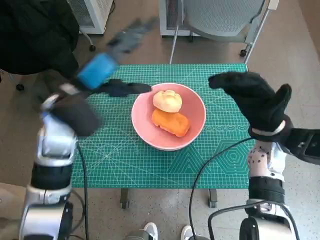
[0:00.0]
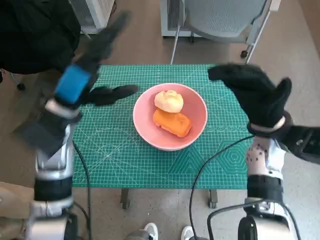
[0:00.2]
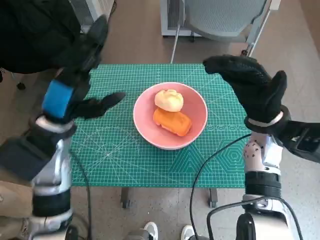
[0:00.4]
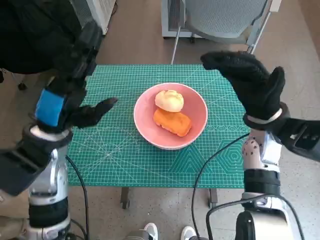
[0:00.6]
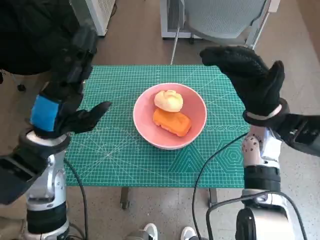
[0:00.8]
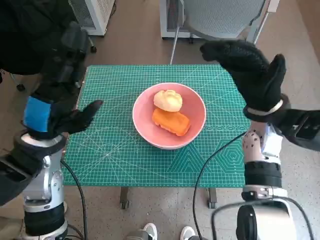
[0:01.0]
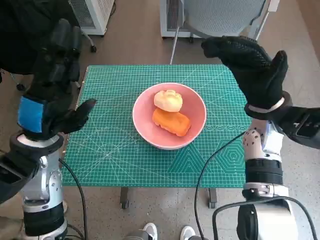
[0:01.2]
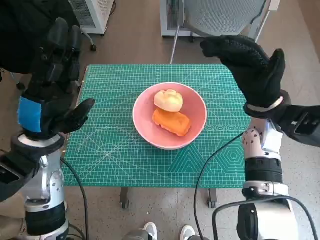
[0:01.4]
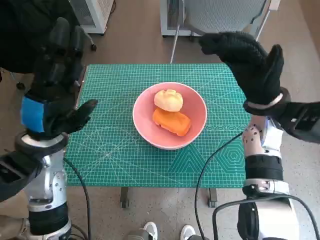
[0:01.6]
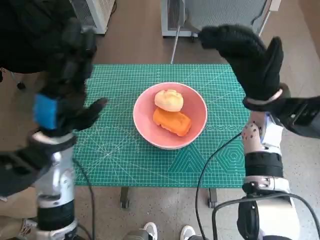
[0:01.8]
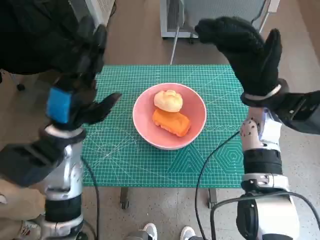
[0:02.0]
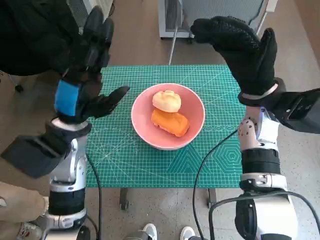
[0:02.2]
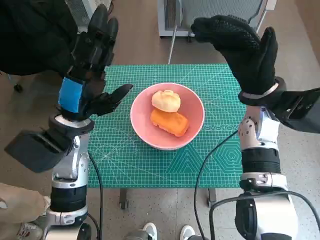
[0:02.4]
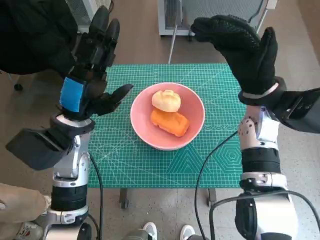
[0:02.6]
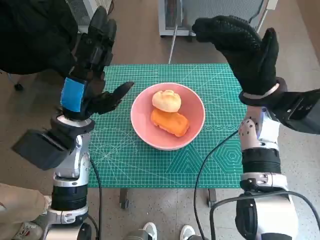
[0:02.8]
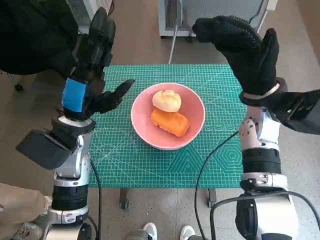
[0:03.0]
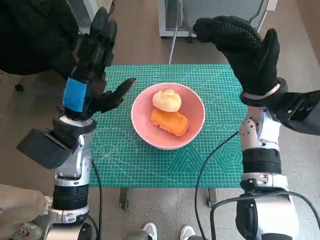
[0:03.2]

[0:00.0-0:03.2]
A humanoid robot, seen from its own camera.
0:00.0 to 0:01.6: The left hand moves backward, some 5 cm. Meanwhile the right hand shifts by about 5 cm.
0:01.6 to 0:03.2: The left hand ends up about 5 cm from where it was.

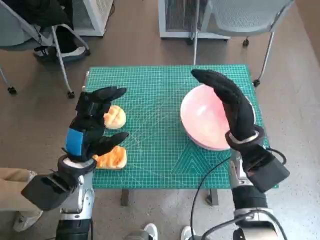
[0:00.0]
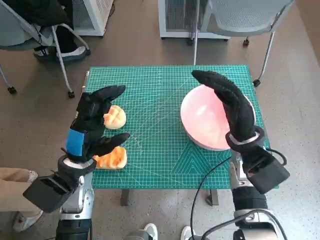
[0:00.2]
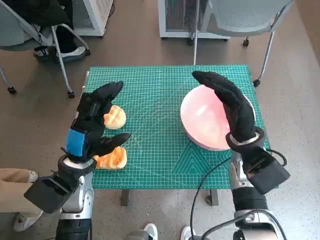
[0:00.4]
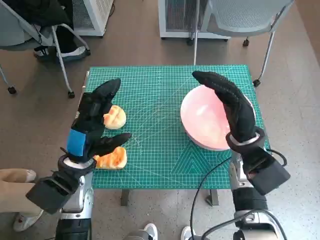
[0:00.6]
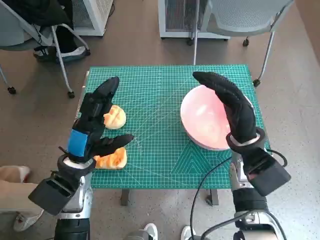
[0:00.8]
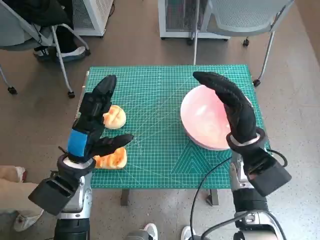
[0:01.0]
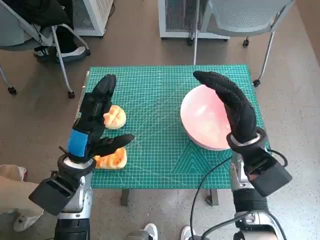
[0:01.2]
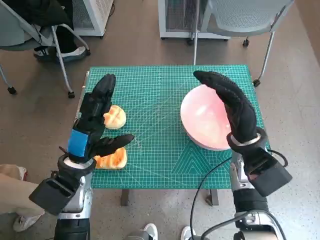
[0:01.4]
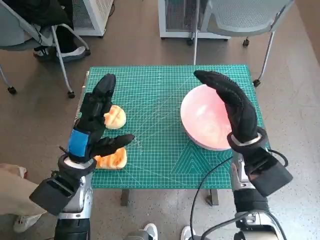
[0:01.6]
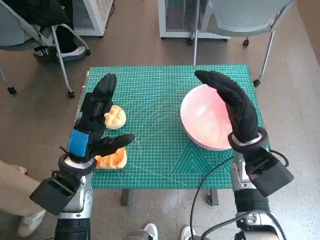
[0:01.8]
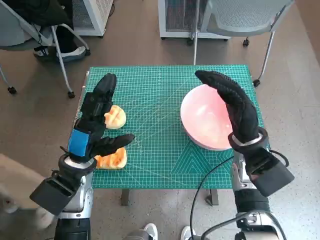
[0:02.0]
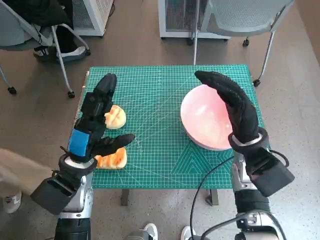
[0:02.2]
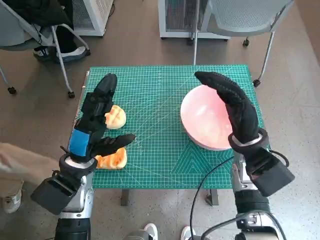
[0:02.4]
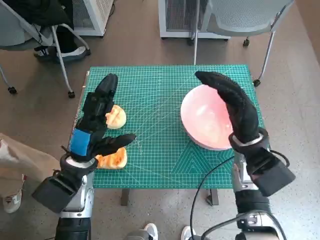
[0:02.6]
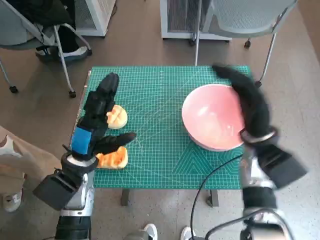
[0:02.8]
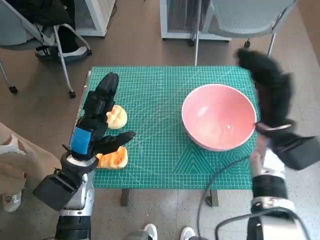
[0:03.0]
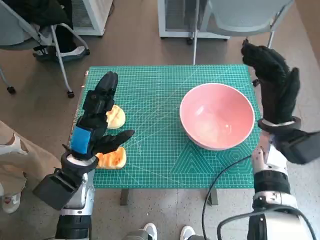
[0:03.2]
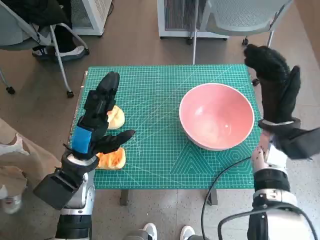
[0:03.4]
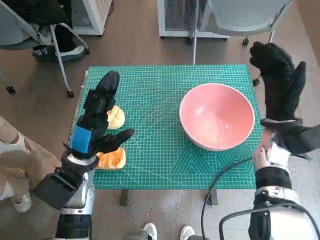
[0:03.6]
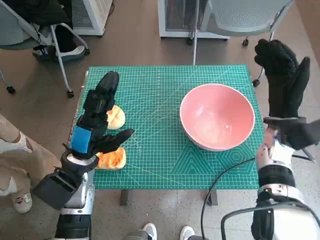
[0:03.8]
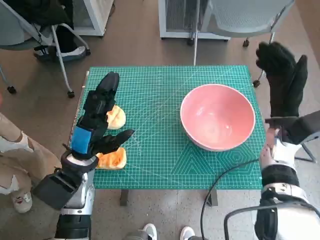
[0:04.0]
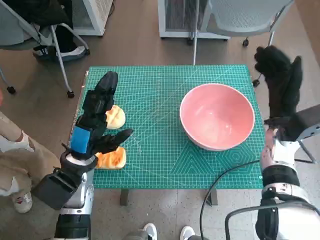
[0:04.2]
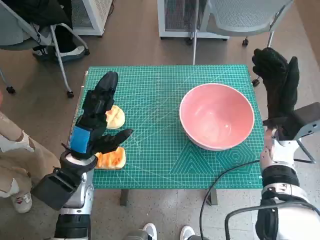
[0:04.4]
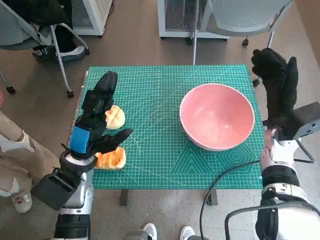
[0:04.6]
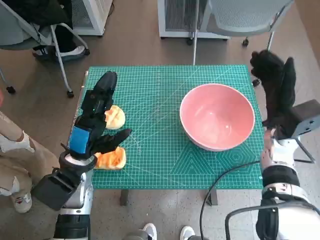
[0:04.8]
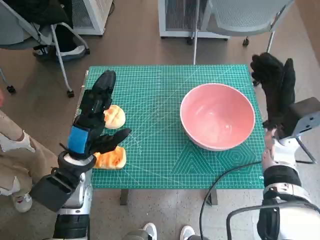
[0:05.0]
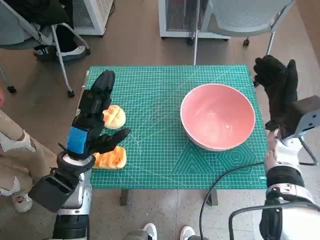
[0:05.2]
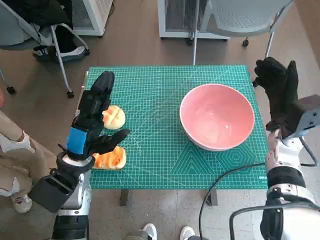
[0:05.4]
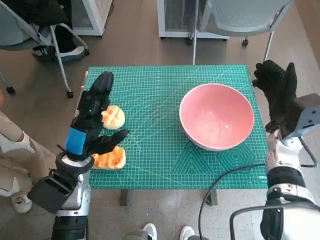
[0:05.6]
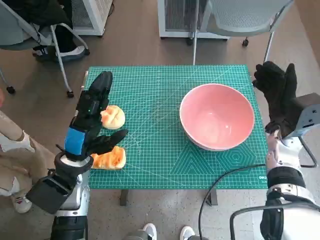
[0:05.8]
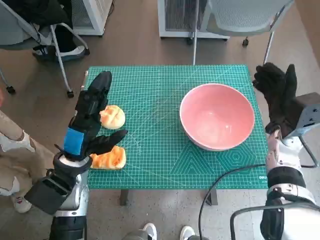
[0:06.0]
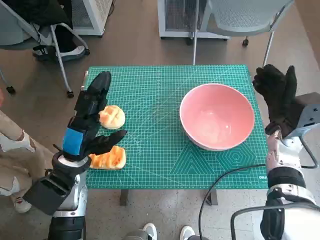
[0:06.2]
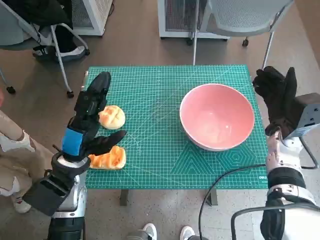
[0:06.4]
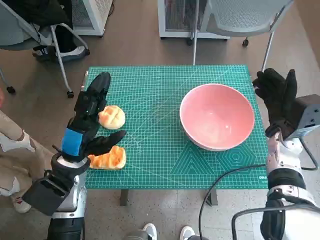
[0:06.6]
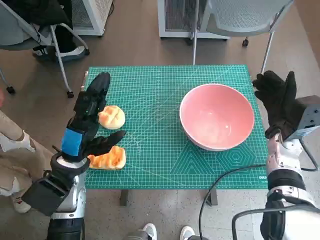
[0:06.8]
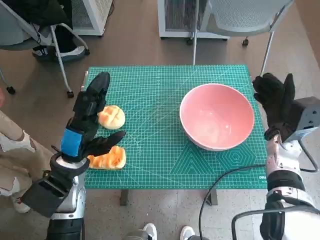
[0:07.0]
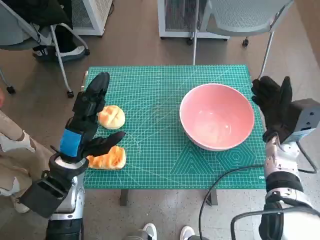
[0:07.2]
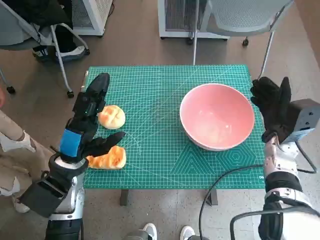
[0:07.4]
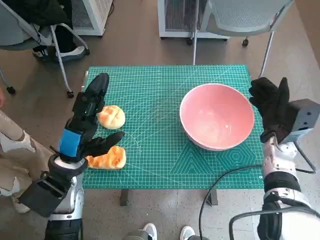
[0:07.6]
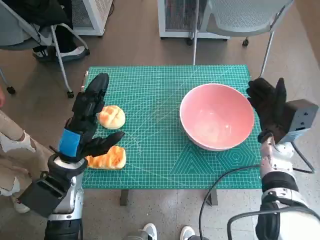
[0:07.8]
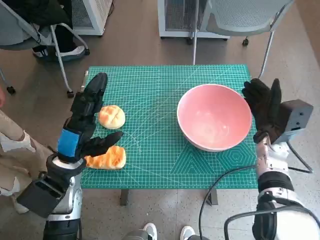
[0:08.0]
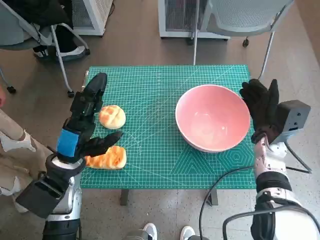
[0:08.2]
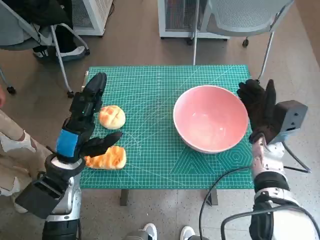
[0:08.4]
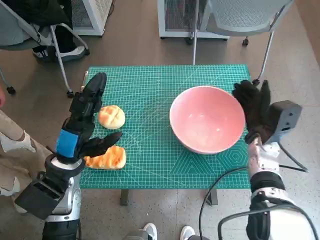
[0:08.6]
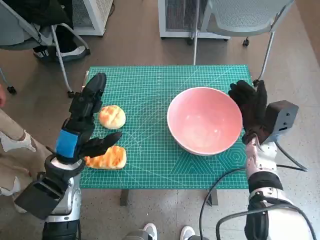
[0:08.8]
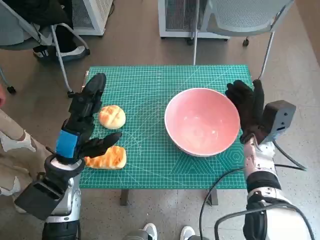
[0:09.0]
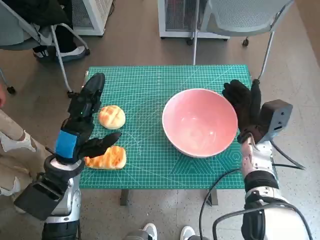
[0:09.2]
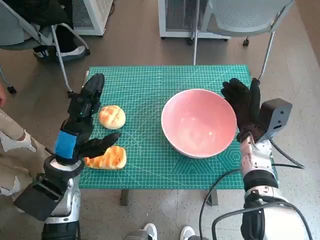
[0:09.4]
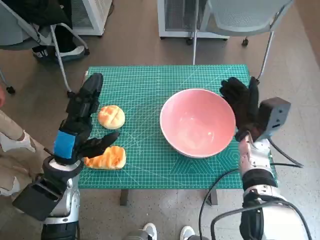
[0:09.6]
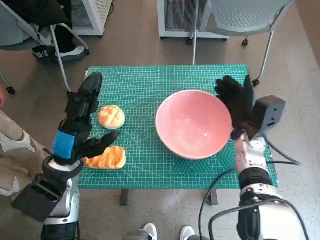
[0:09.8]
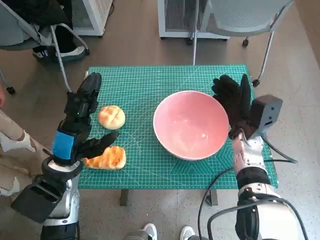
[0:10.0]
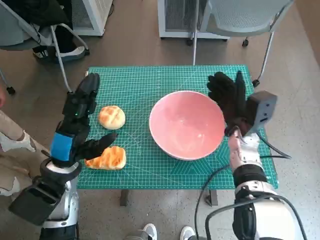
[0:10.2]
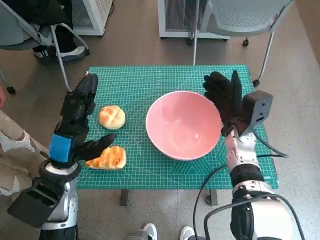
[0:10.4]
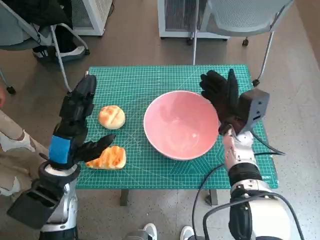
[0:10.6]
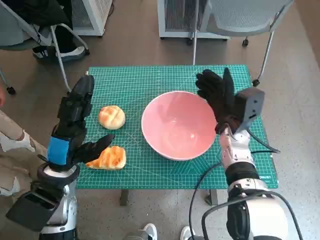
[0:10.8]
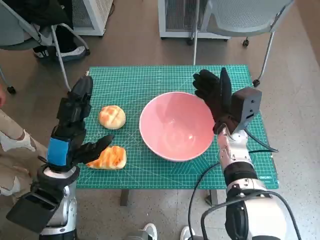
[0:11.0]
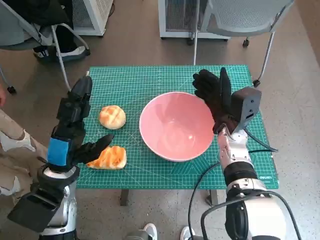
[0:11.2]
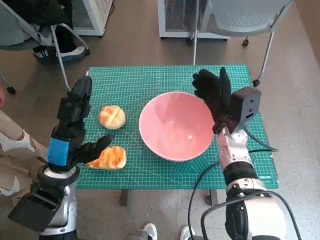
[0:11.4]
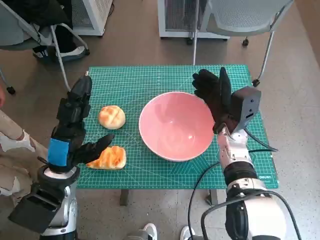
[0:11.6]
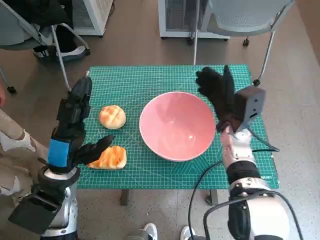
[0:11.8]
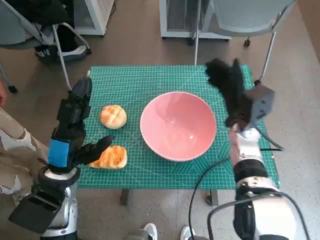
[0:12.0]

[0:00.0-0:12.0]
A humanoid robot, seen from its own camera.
Step, 0:00.0 to 0:11.8: Move the pink bowl to the center of table with right hand.
0:04.4 to 0:06.0: The hands stay close to where they were, moving slightly.
0:06.0 to 0:09.0: The hands make only small movements.
0:10.4 to 0:12.0: The hands make only small movements.

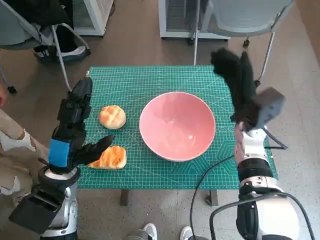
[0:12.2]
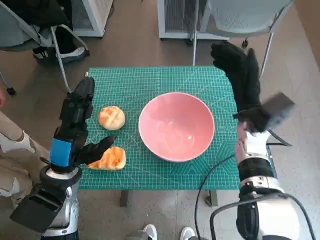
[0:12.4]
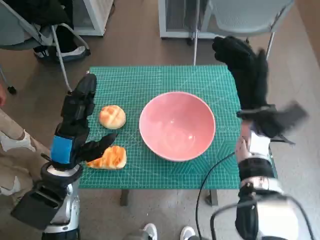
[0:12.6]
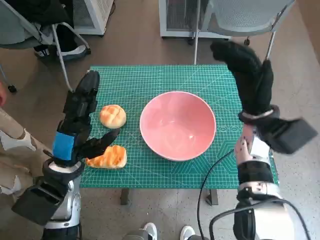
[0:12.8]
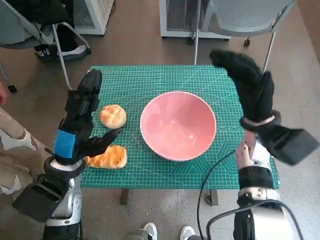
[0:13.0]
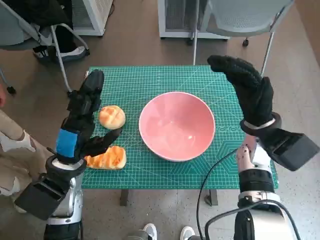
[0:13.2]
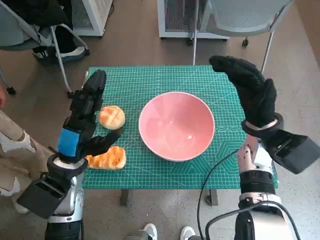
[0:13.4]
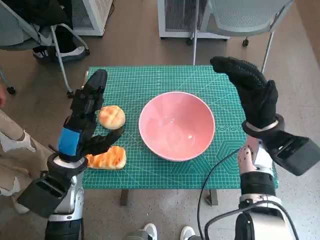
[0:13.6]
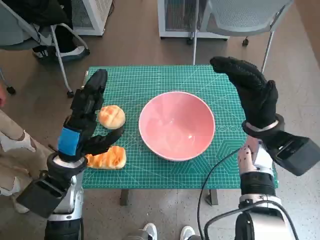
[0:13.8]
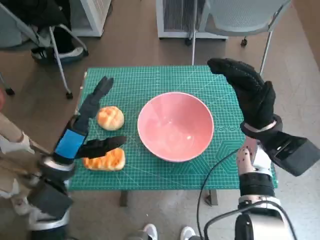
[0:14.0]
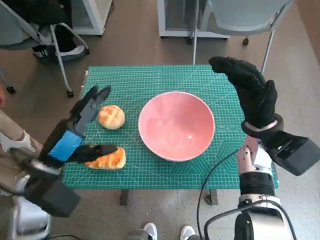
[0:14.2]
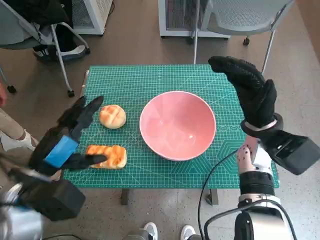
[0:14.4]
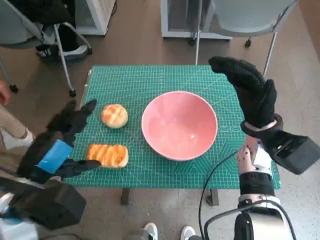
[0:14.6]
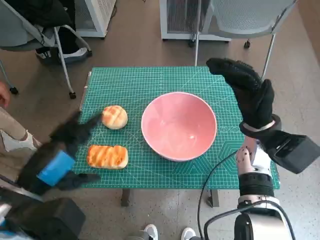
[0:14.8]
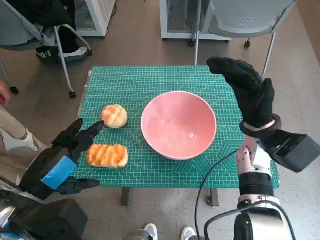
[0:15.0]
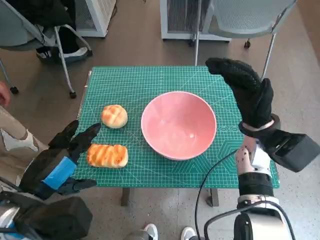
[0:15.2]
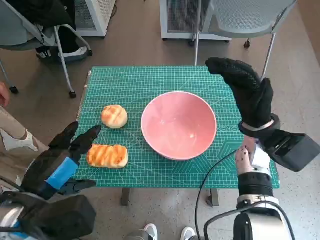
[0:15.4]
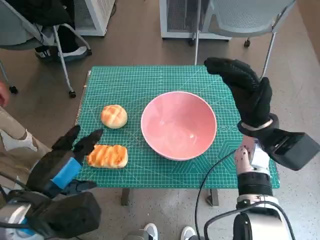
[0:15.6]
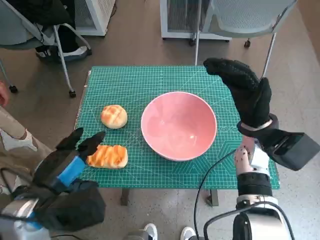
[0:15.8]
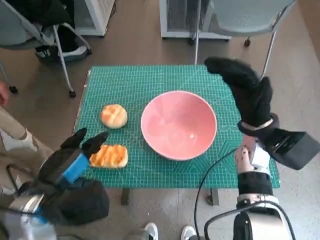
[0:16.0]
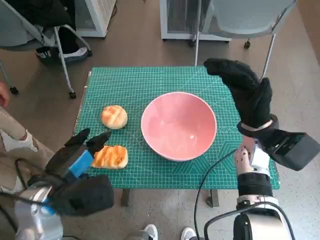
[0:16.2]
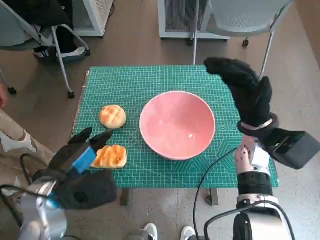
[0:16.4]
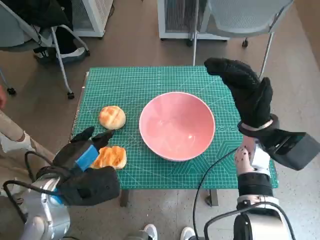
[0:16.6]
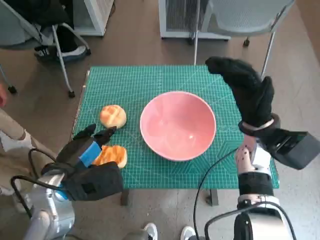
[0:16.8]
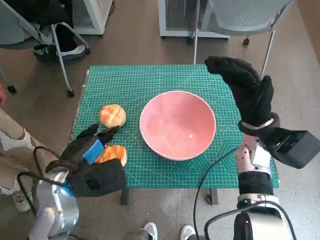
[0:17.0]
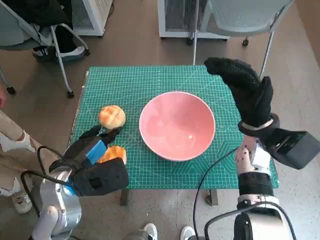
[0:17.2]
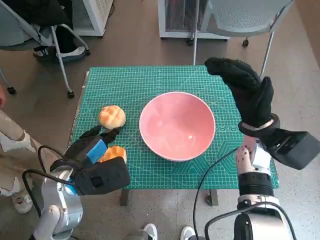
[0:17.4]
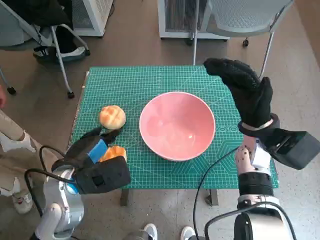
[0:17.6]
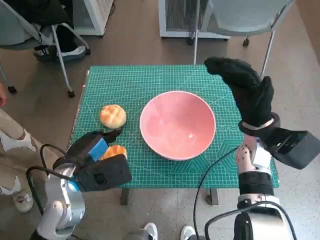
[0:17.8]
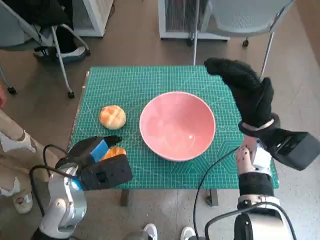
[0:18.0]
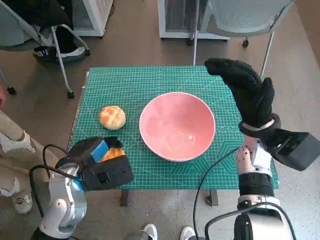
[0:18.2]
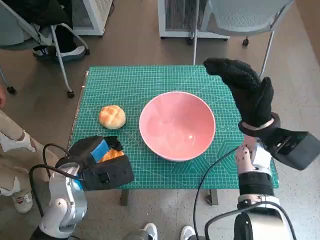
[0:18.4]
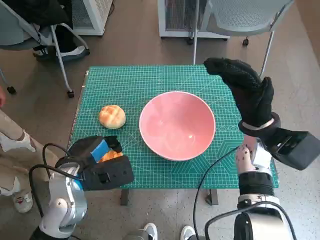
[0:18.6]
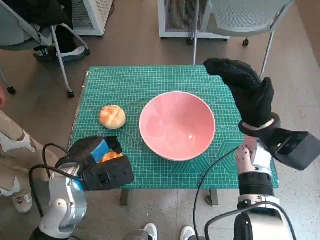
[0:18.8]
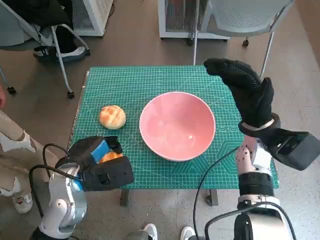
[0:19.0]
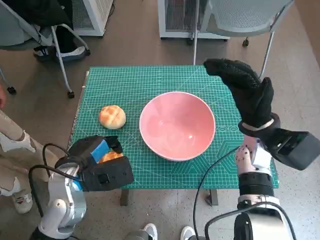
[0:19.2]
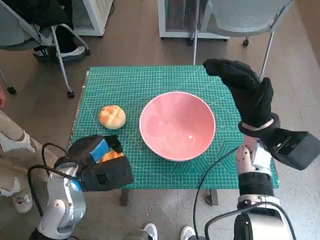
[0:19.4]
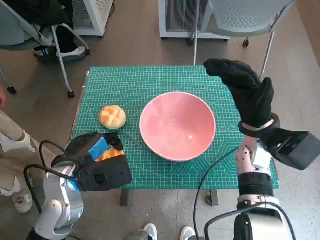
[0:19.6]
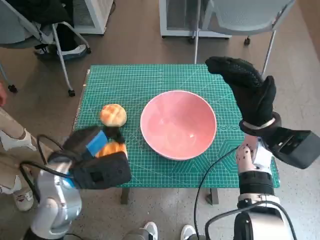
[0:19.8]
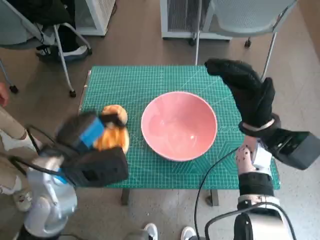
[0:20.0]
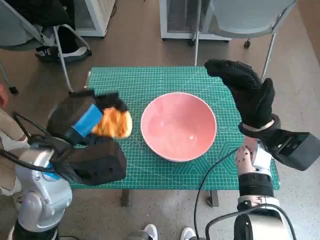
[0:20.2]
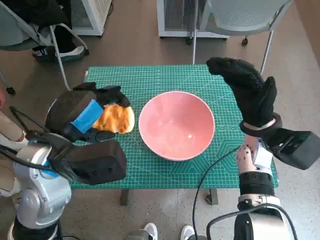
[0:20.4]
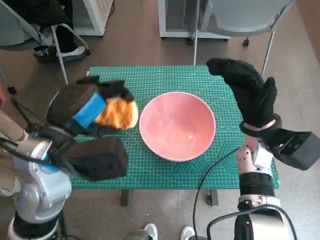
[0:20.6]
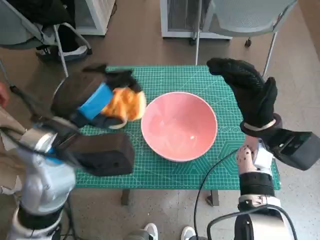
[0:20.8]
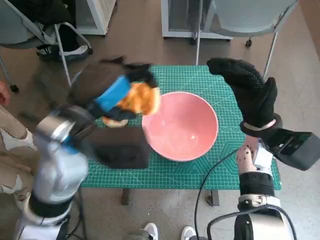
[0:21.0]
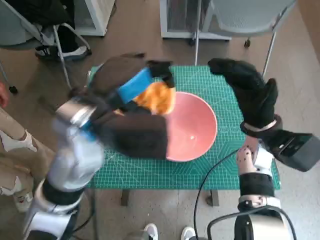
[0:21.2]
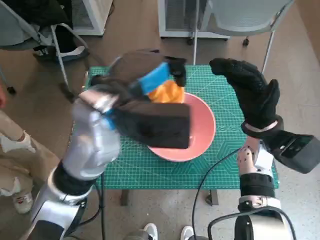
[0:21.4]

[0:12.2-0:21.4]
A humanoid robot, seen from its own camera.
Step, 0:12.2 to 0:18.8: Grasp the long bread with left hand.
0:13.8 to 0:15.2: The left hand shifts approximately 10 cm backward and upward.
0:15.2 to 0:16.8: The left hand goes approximately 5 cm forward.
0:16.8 to 0:19.8: The hands make only small movements.
0:19.8 to 0:21.4: The left hand moves upward, to the right and forward, approximately 15 cm.
